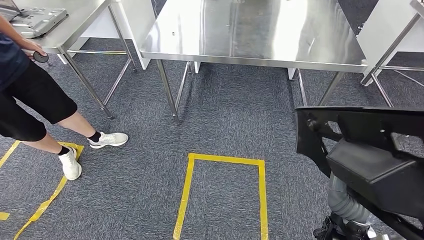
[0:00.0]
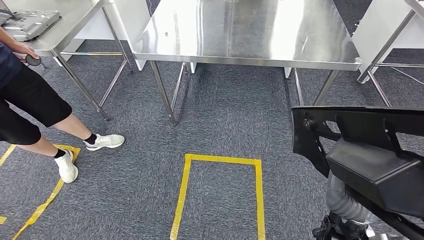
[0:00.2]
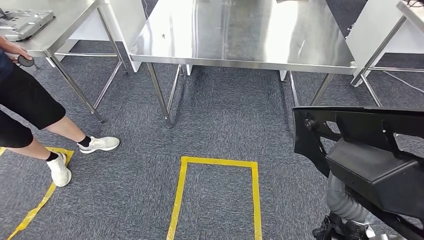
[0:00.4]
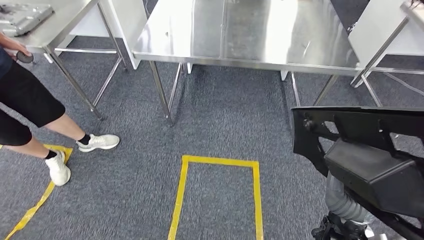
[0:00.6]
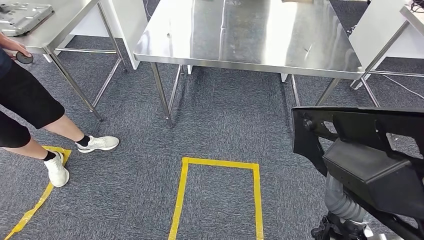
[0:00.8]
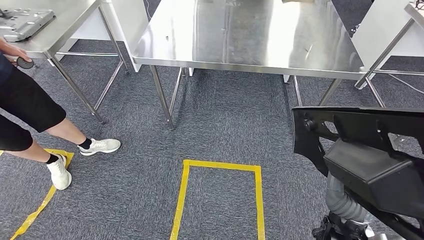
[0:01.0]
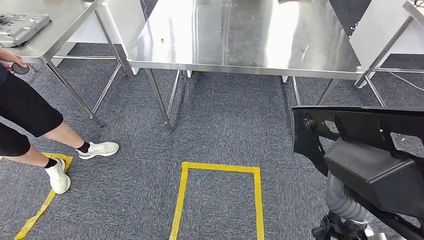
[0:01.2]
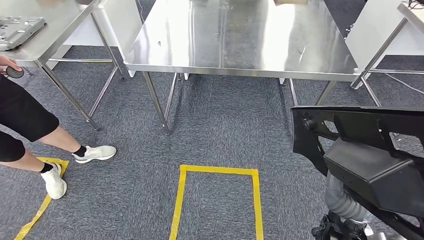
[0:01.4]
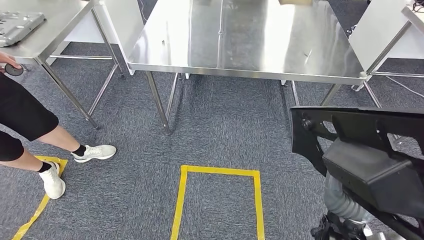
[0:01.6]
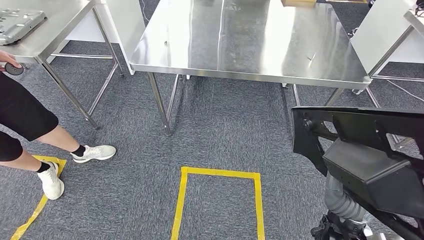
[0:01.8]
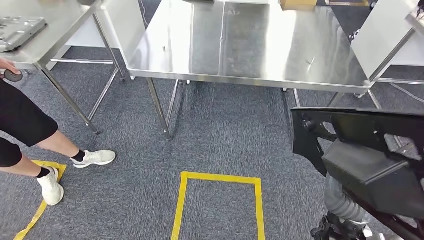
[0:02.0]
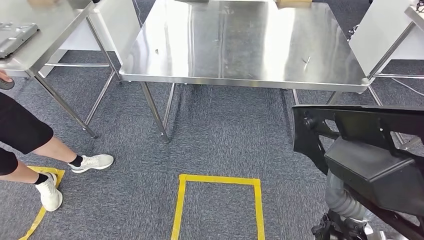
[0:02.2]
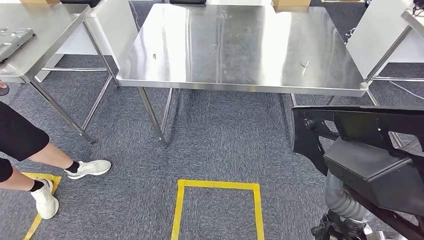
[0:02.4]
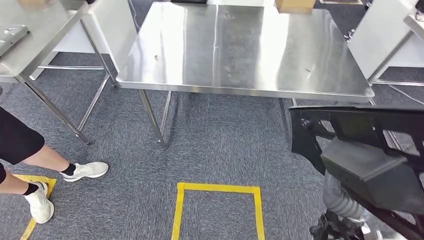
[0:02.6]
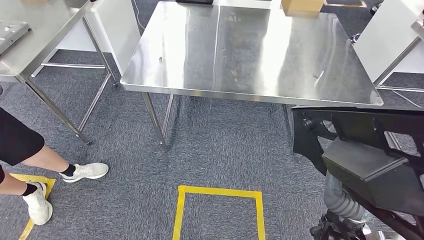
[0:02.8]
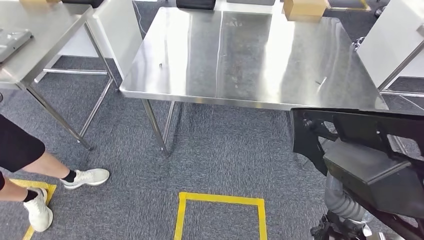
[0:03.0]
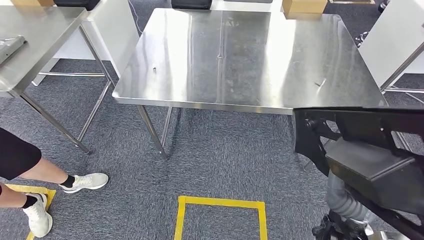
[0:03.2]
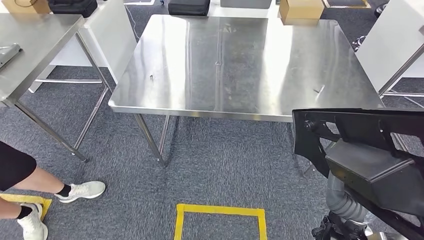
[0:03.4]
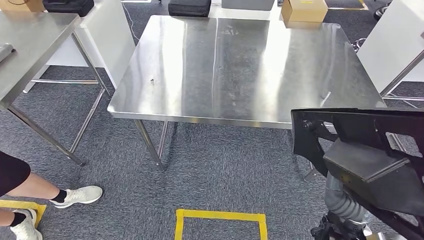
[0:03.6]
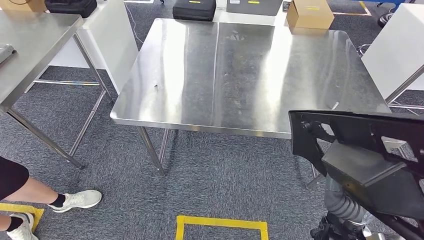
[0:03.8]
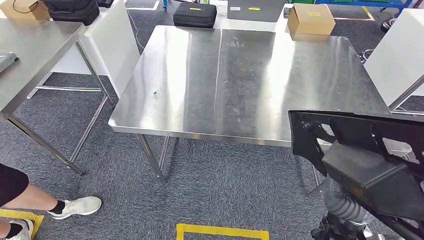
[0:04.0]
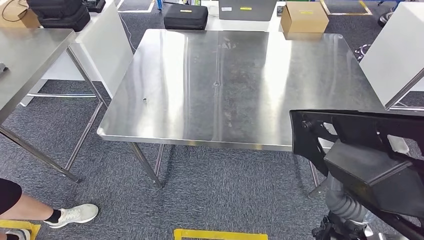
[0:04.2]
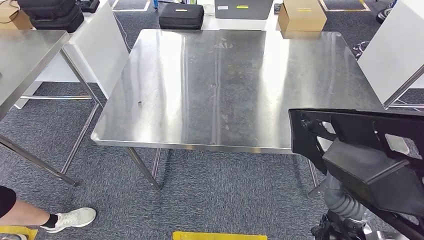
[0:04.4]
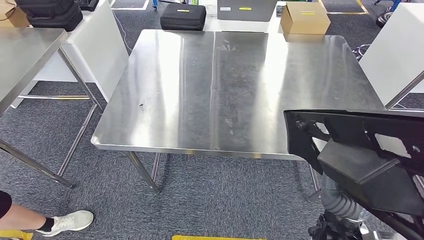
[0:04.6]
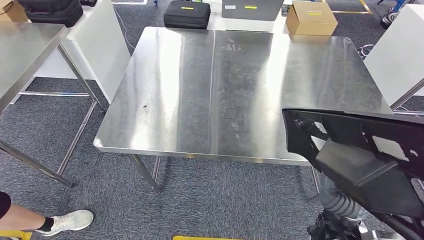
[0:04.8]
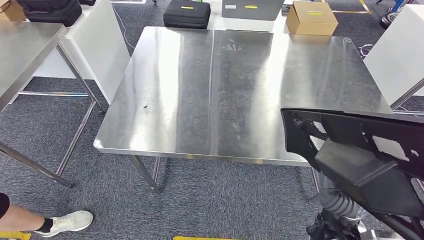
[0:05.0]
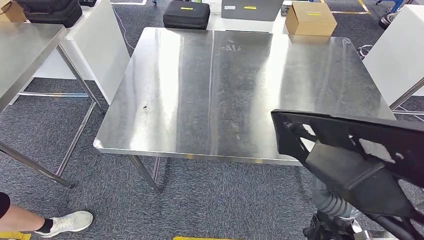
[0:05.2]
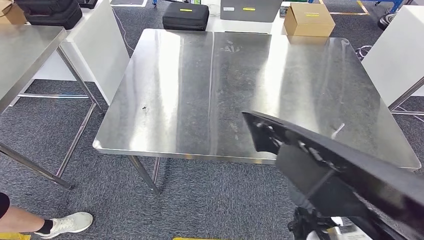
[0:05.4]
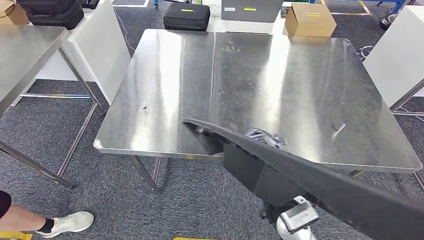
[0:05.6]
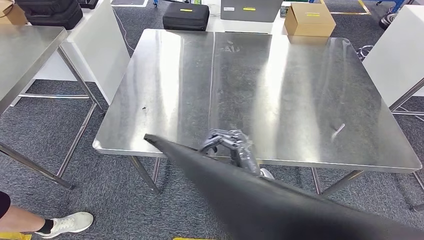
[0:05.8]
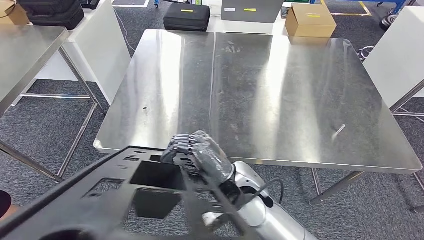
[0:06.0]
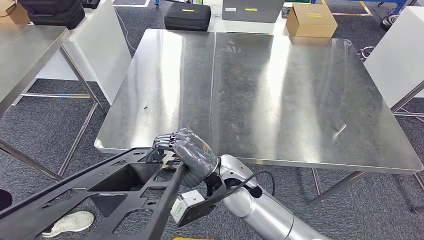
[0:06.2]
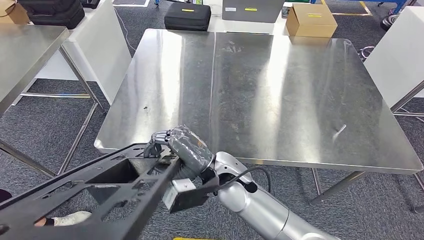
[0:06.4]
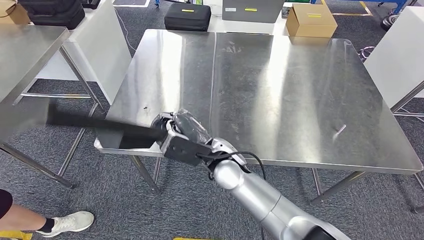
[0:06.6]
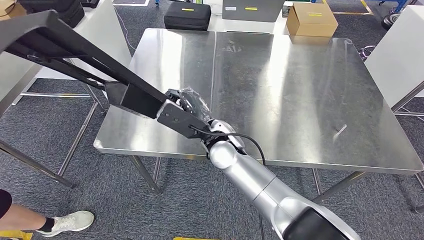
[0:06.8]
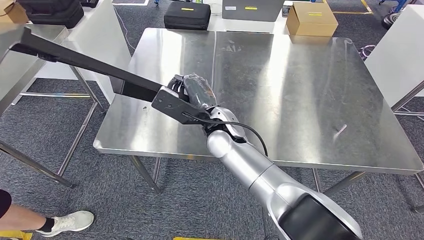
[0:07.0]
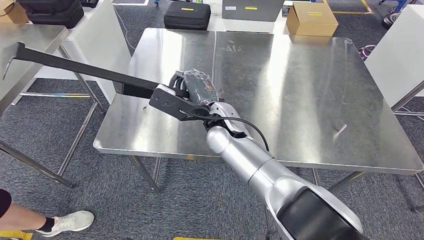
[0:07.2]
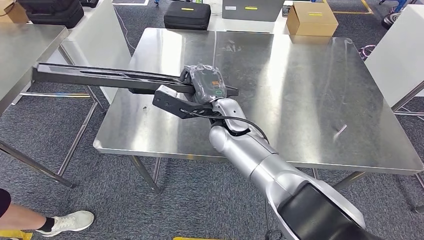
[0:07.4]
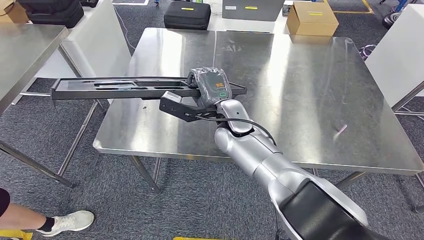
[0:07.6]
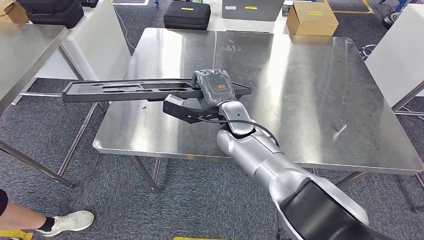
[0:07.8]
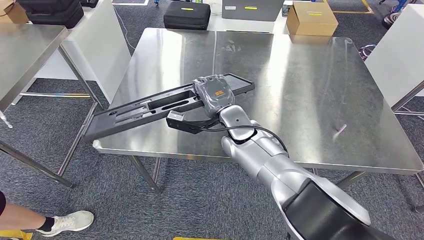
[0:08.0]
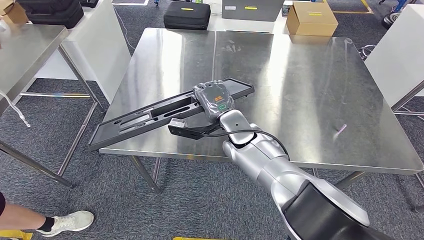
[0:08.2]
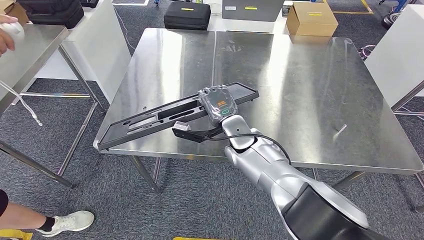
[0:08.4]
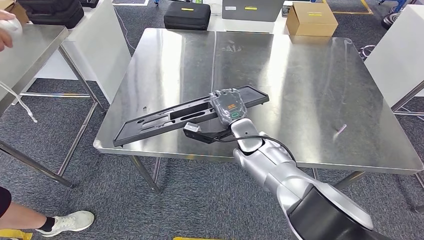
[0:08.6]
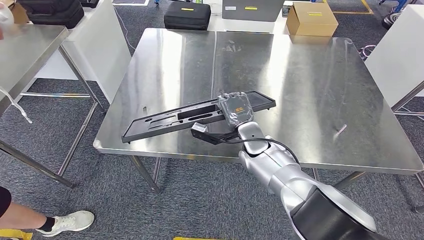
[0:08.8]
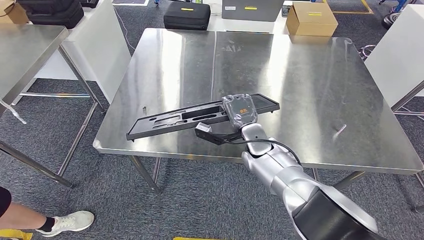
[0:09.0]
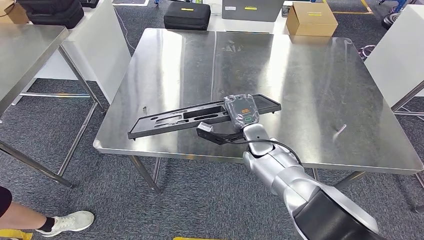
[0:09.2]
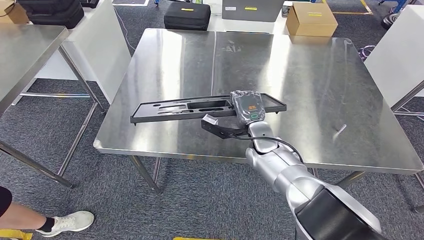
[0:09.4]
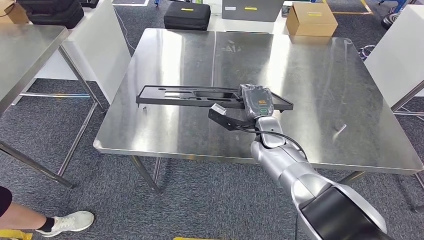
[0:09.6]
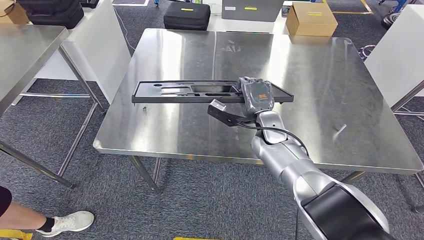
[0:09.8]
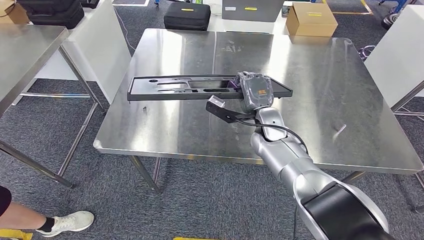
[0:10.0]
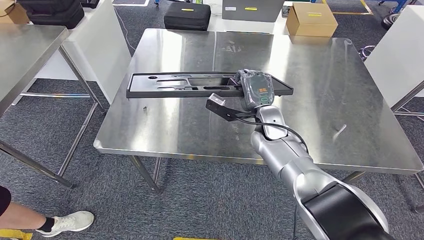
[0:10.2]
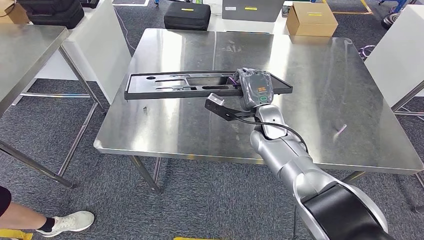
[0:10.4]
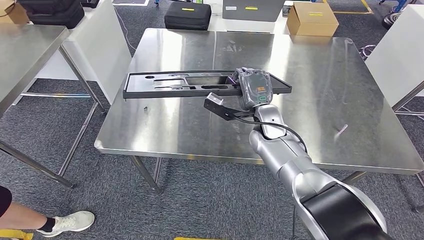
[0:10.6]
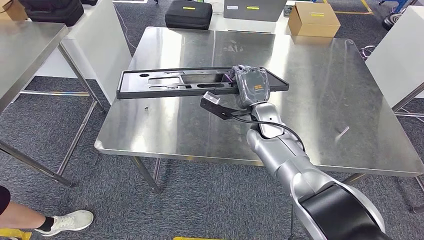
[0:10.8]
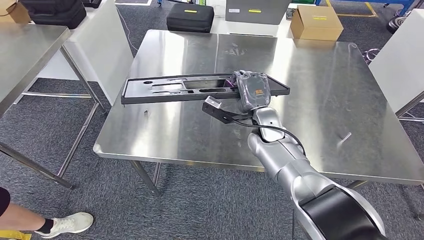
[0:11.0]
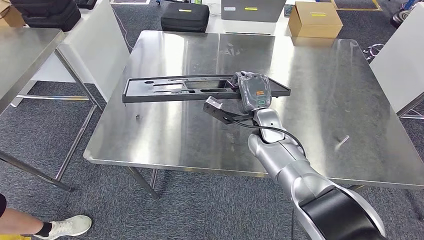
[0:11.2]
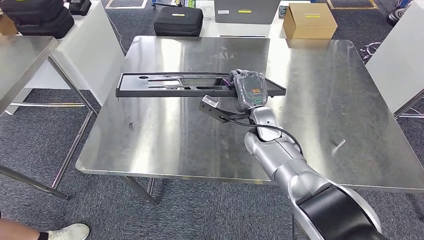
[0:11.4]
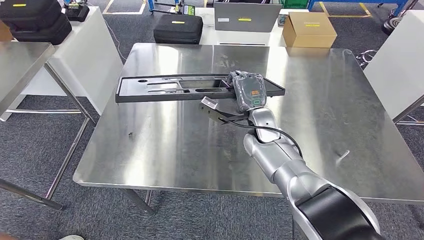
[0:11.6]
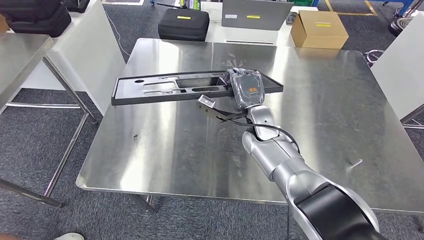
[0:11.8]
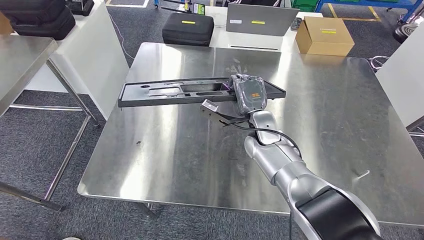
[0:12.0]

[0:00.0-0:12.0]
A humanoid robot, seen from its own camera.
Step, 0:00.0 to 0:03.6: Move the large material to the workbench.
0:07.6 to 0:09.0: The right hand is displaced downward and to the right by roughly 10 cm.
0:09.0 to 0:10.4: The right hand changes place by some 5 cm.

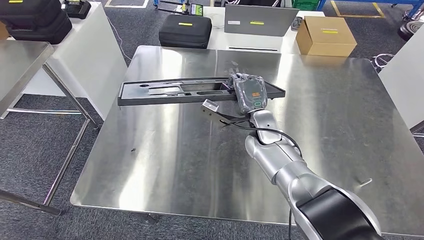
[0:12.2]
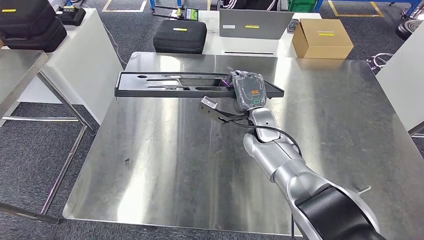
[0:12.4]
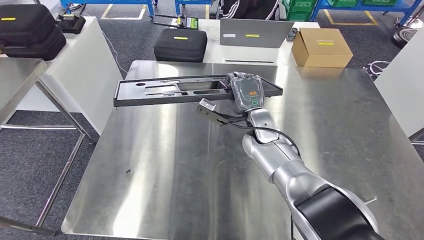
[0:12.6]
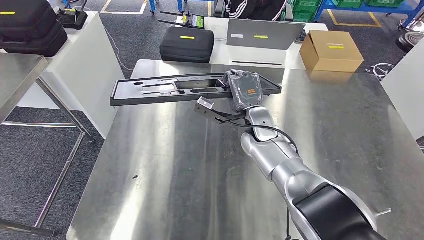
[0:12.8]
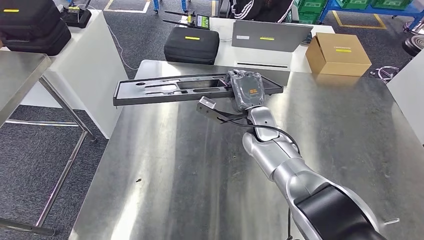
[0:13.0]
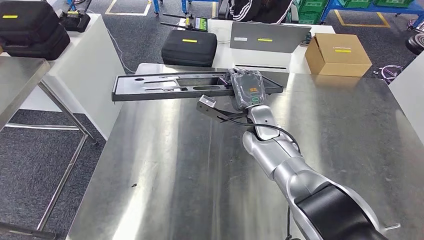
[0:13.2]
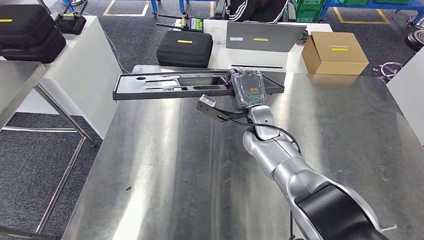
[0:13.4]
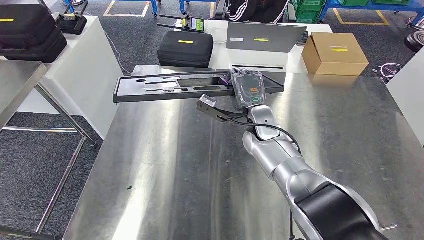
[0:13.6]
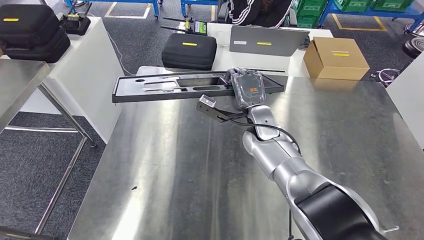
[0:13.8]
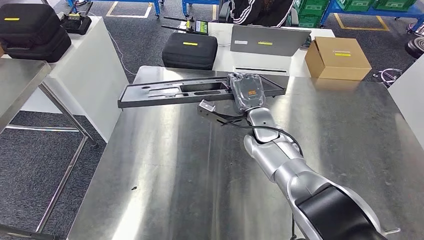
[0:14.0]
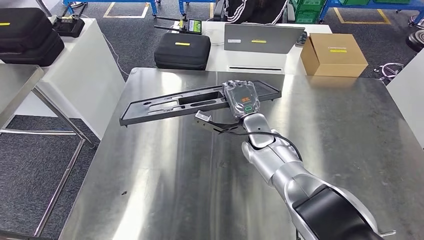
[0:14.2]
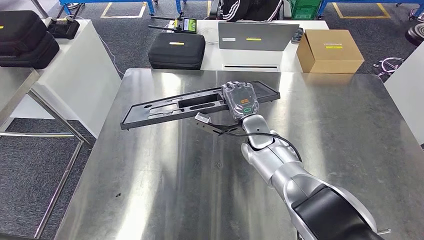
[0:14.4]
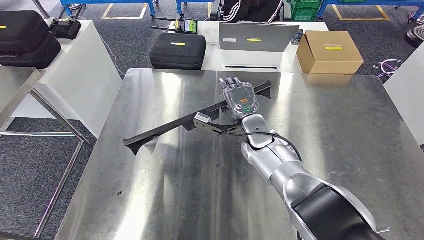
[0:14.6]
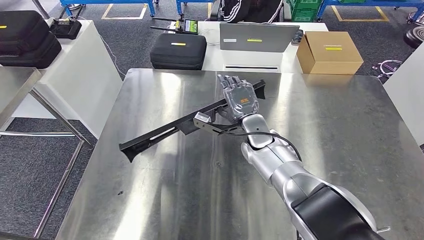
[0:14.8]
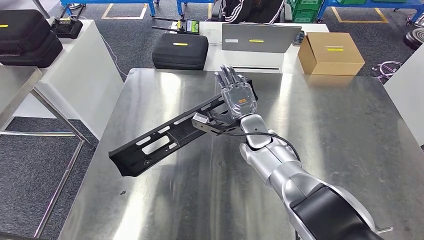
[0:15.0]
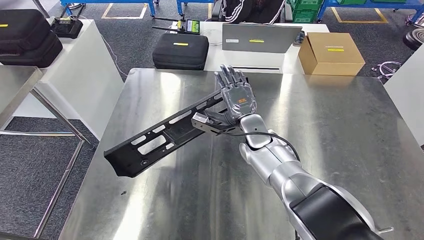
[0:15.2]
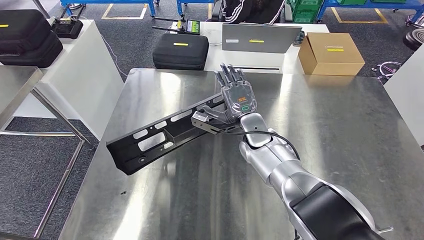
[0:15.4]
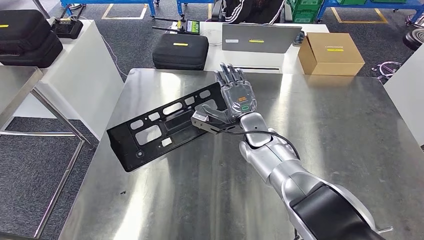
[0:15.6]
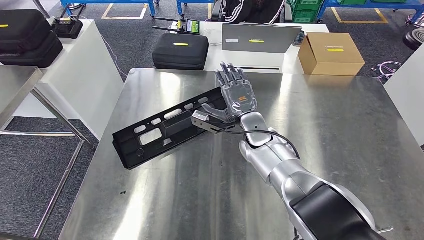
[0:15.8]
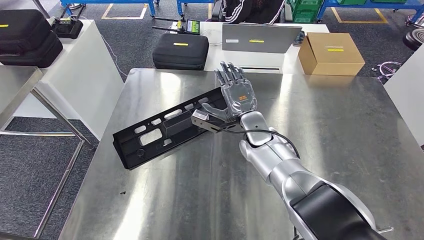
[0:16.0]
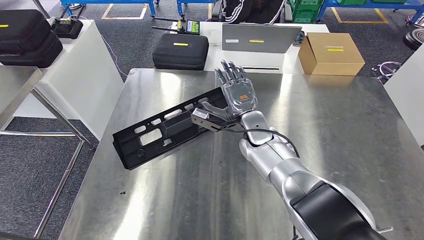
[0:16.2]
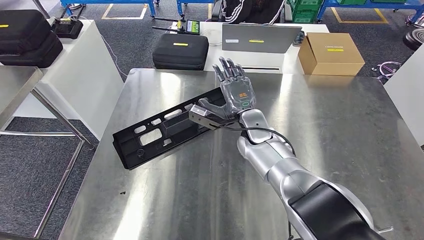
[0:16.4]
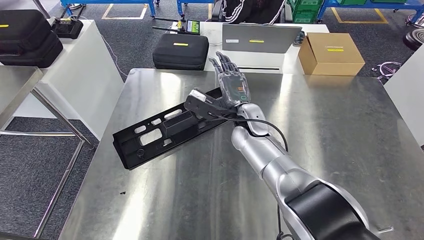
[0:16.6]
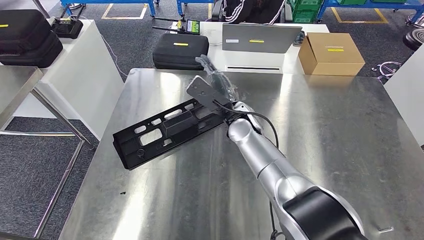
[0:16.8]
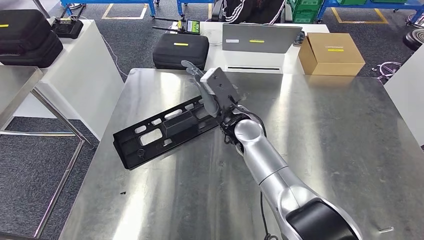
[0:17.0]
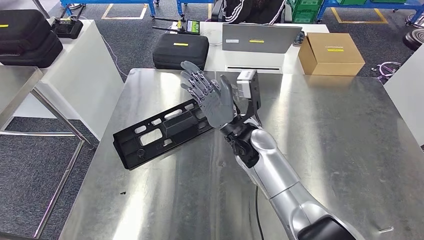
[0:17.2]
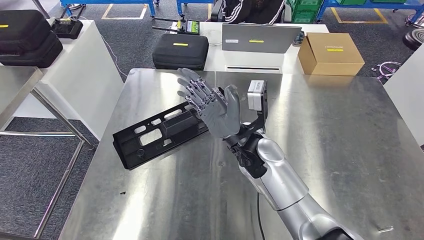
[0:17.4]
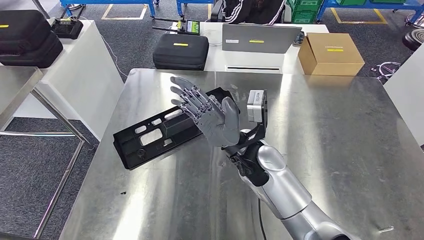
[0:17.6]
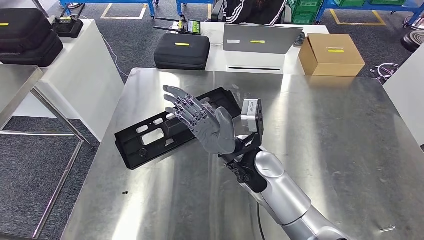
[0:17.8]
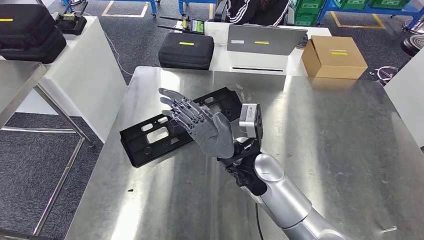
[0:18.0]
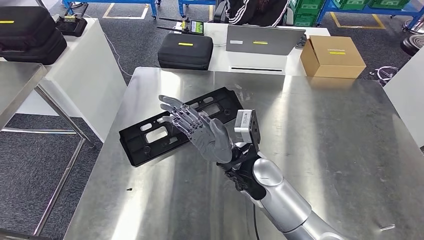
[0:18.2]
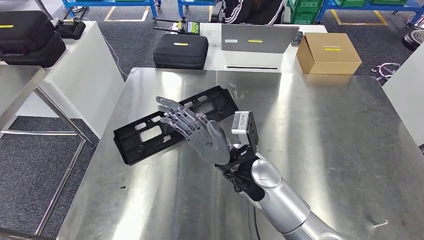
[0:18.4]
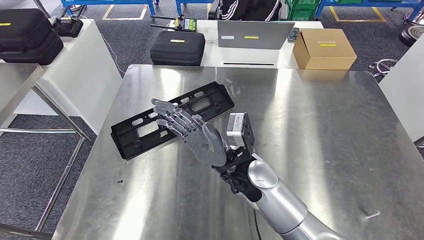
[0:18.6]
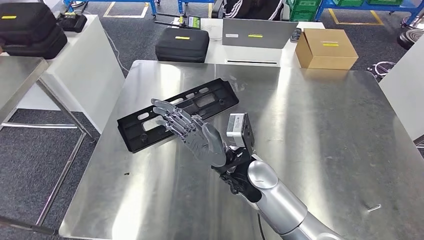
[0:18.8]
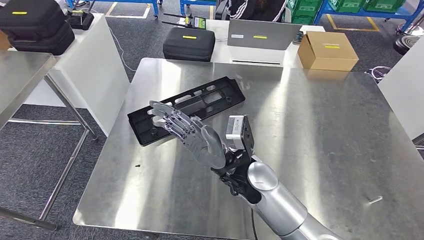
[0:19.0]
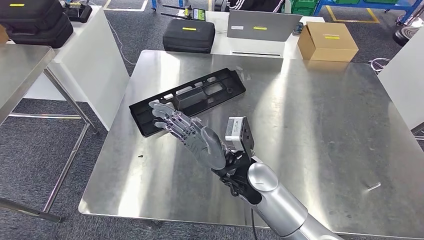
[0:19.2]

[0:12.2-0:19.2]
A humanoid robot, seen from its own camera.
Step, 0:12.2 to 0:15.6: Insert the large material into the corresponding slot on the workbench.
0:15.0 to 0:16.4: The hands stay close to where they were, moving slightly.
0:16.4 to 0:17.8: The right hand is displaced backward by roughly 10 cm.
